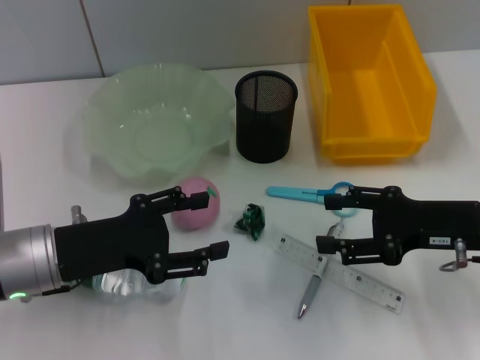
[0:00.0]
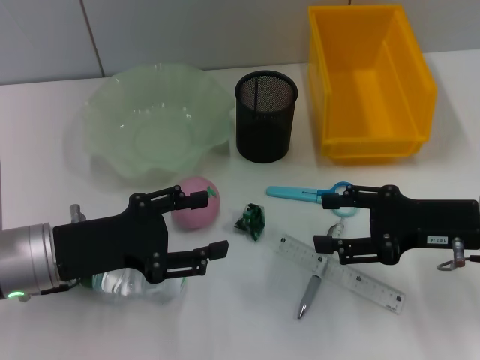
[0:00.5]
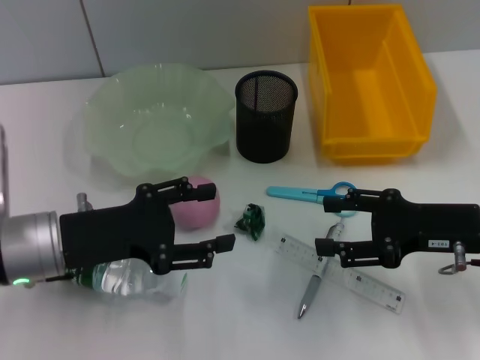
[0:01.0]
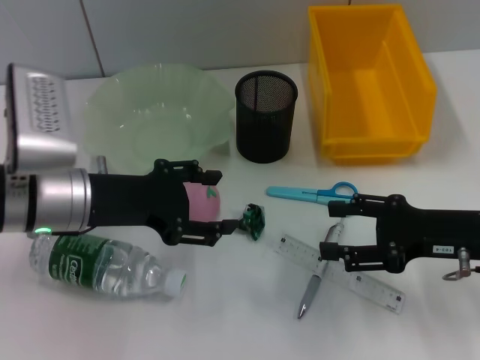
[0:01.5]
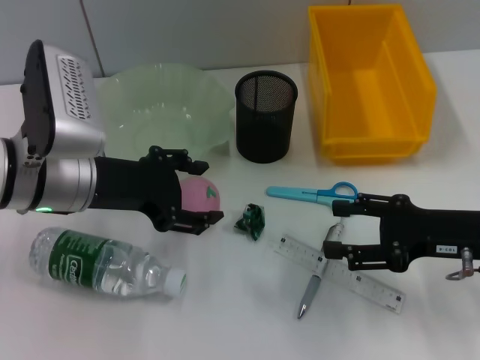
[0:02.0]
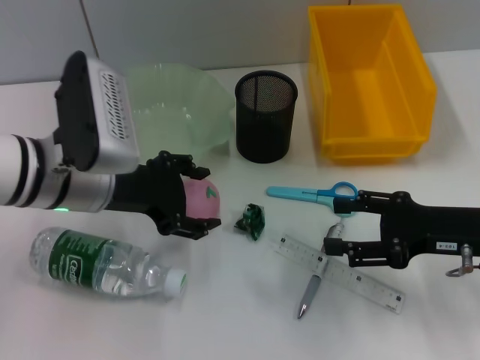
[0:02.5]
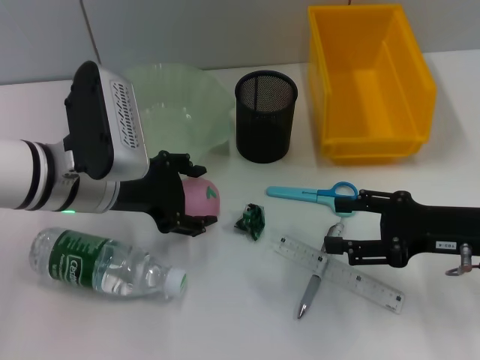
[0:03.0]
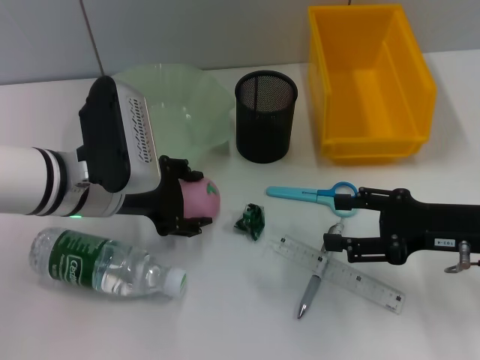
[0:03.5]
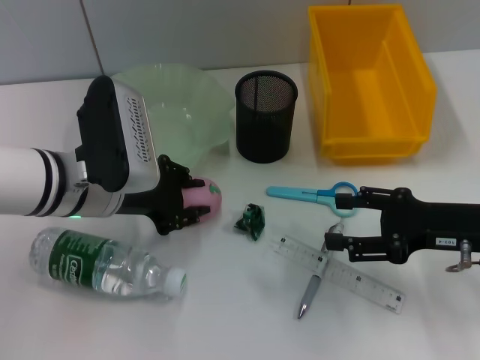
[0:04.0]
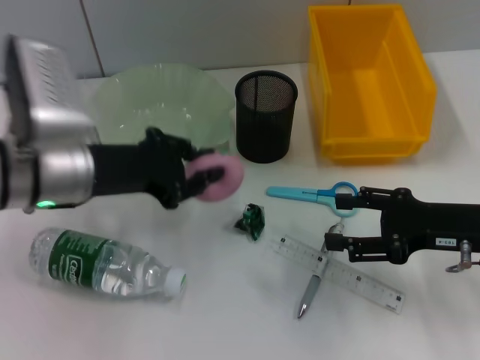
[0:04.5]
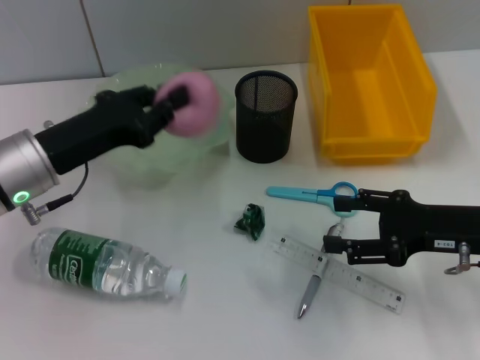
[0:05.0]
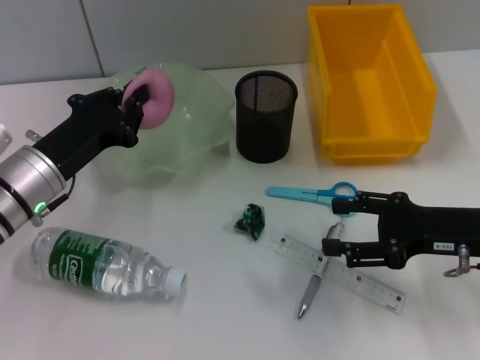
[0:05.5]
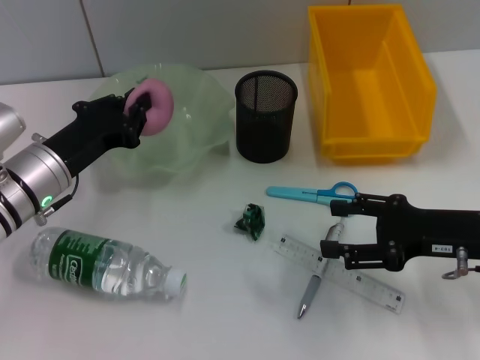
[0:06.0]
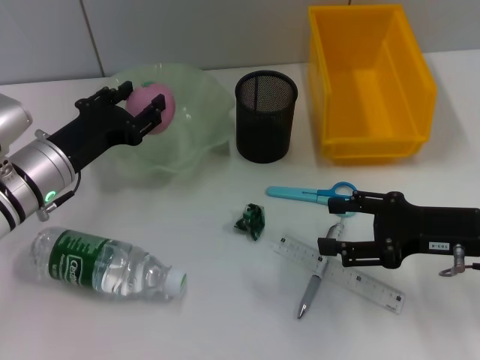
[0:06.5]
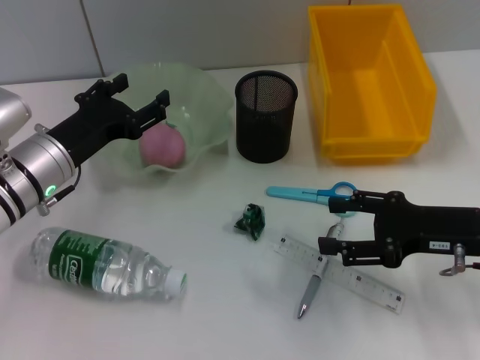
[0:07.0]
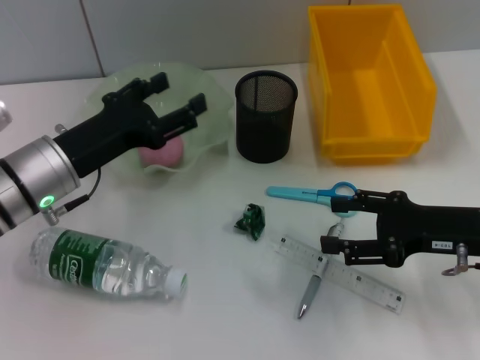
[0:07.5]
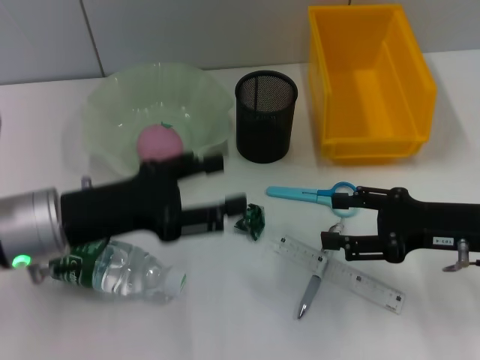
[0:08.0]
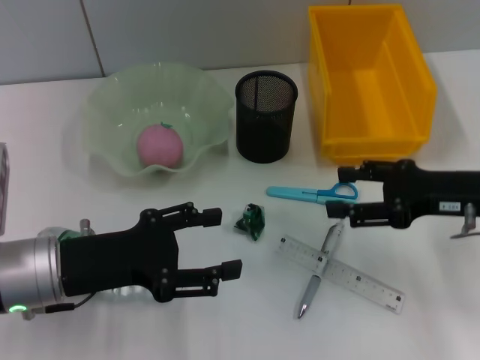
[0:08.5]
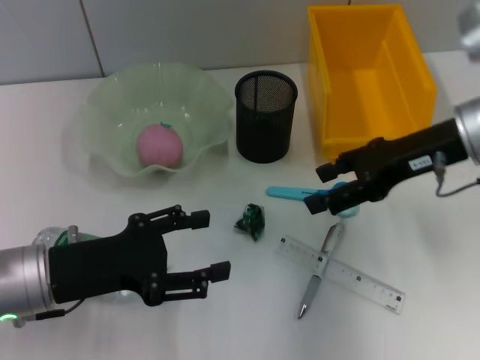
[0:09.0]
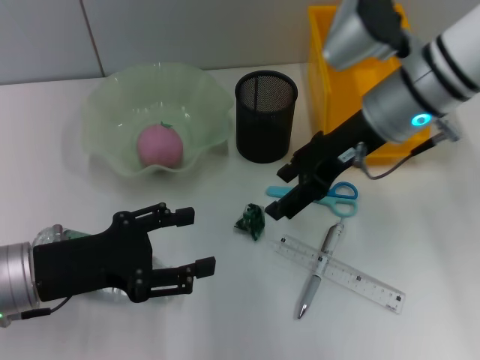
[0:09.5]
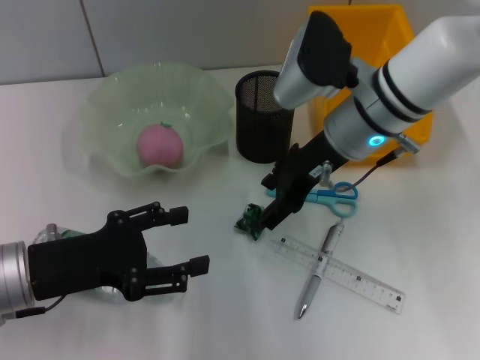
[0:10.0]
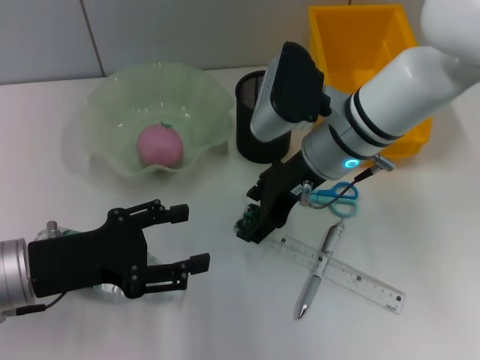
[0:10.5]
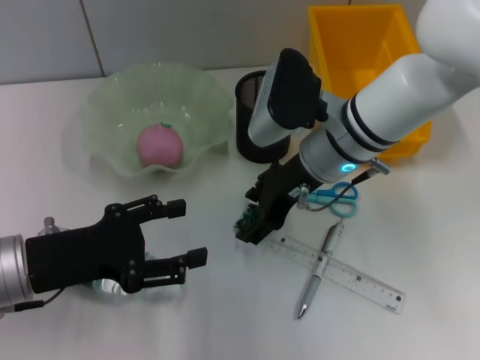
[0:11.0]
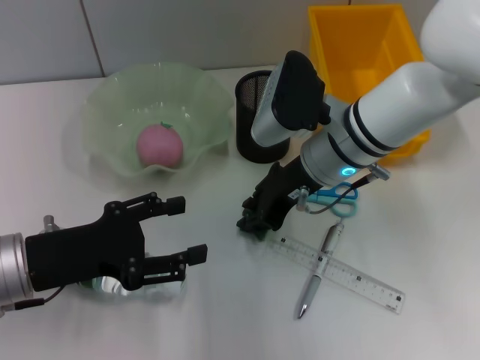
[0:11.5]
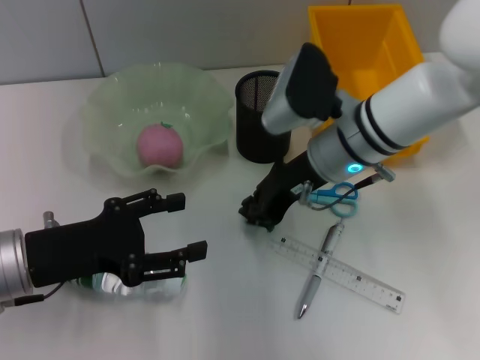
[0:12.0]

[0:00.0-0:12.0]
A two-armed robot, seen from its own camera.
Step, 0:00.0 to 0:04.0: Grab the peach with the left hand.
Step, 0:04.5 to 0:06.5: Place the peach into the fruit bowl with the left hand.
Step, 0:07.0 to 0:11.5: Grab the plastic with the right hand.
0:00.0 to 0:02.0: The left gripper shifts some 10 cm upward and forward.
0:02.0 to 0:04.0: The left gripper closes.
0:04.0 to 0:06.0: The left gripper shifts some 5 cm to the left, and closes its fingers.
0:06.0 to 0:08.0: The left gripper is displaced backward by some 5 cm, and opens up.
0:08.0 to 0:10.0: The right gripper moves to the left, forward and upward, some 20 cm.
0:10.0 to 0:12.0: The right gripper closes up.

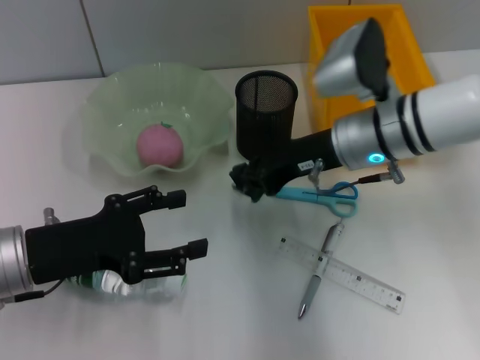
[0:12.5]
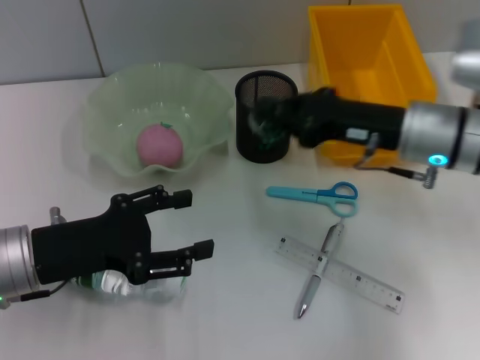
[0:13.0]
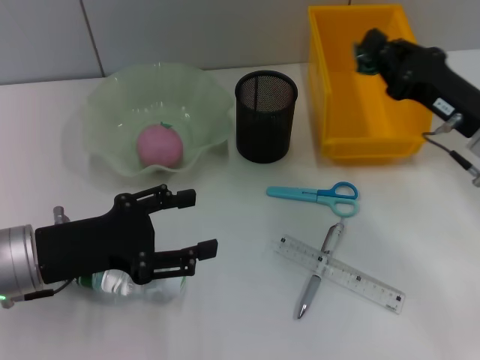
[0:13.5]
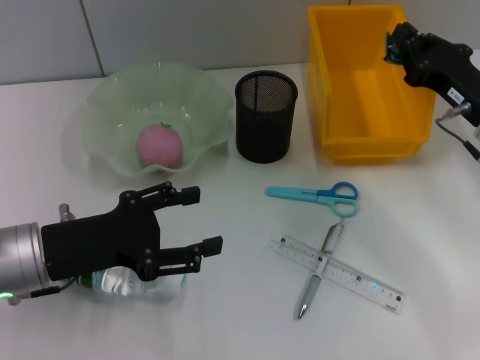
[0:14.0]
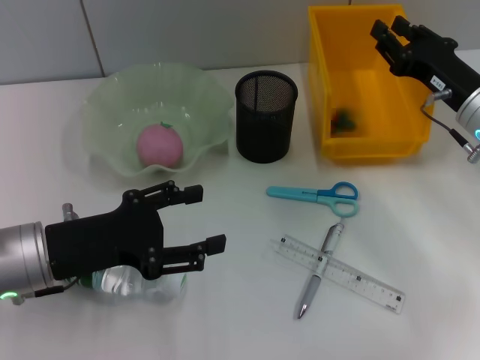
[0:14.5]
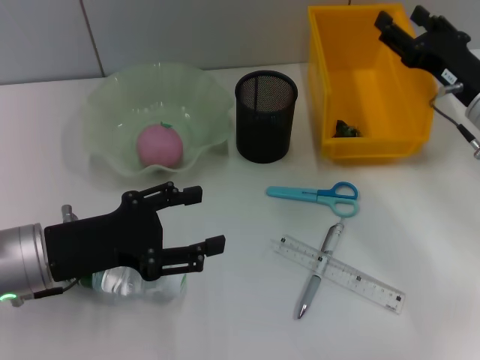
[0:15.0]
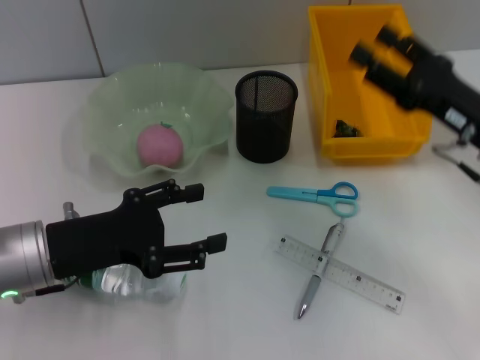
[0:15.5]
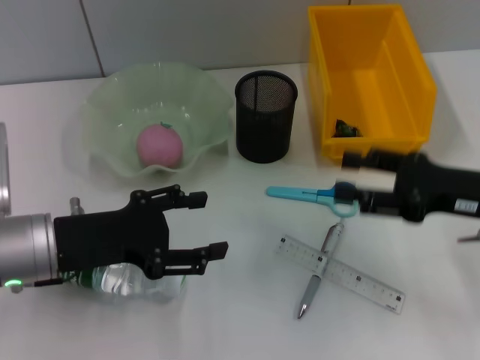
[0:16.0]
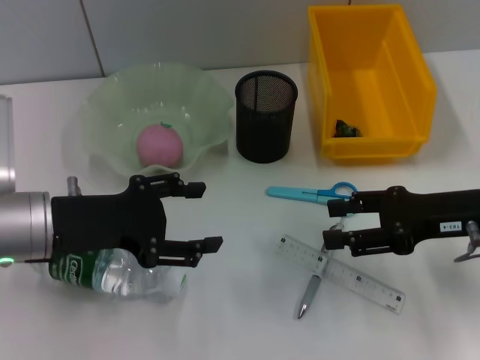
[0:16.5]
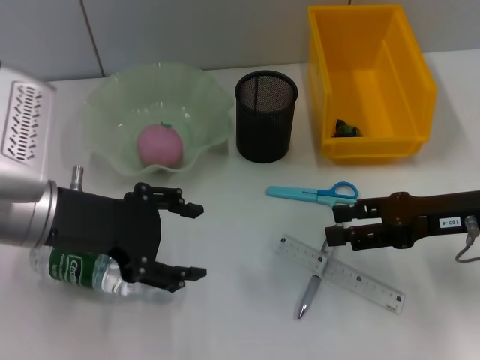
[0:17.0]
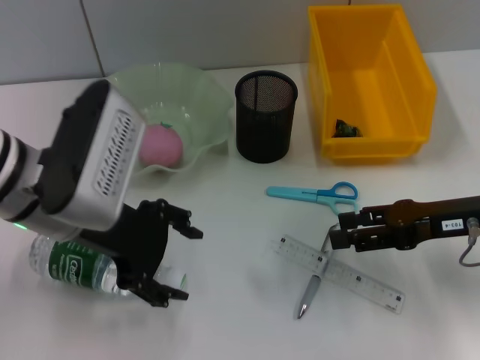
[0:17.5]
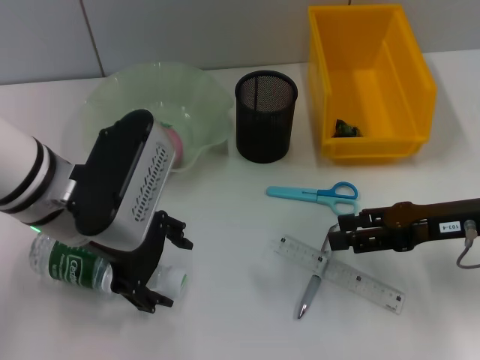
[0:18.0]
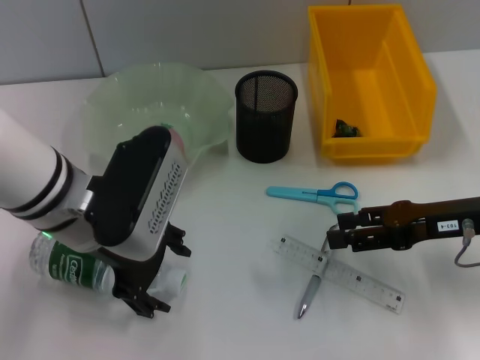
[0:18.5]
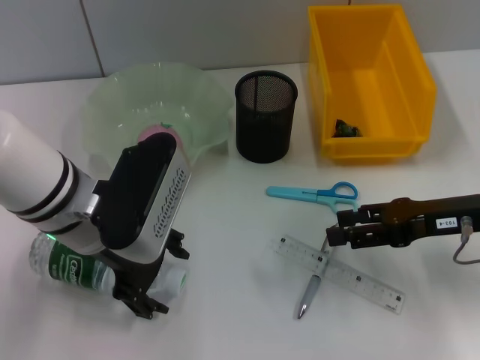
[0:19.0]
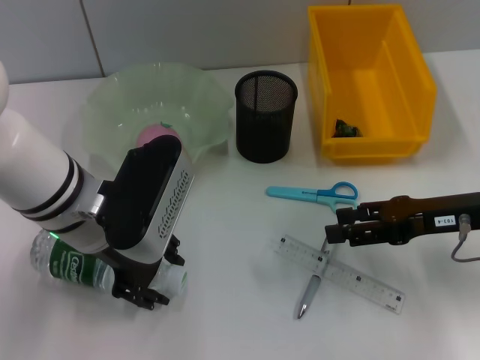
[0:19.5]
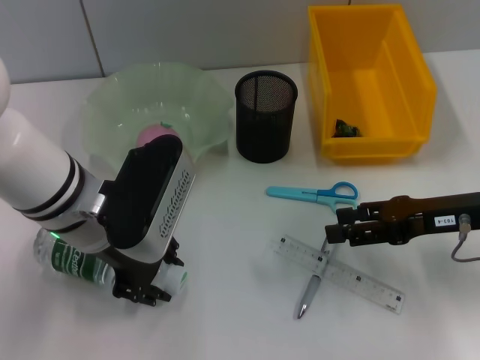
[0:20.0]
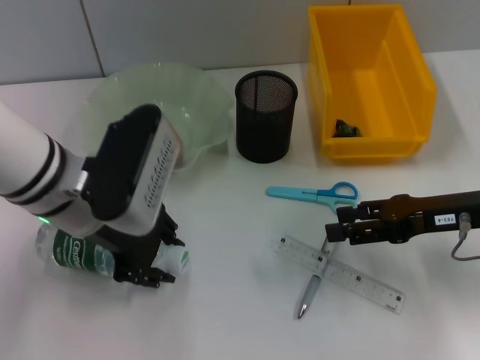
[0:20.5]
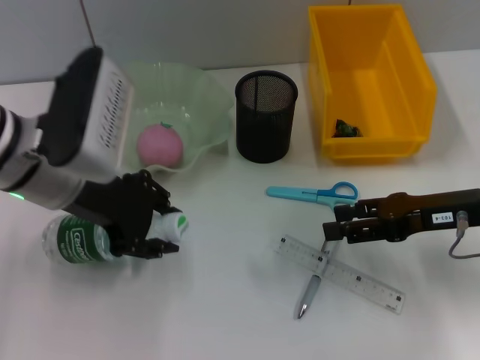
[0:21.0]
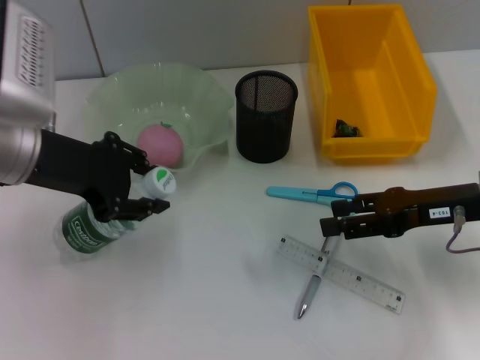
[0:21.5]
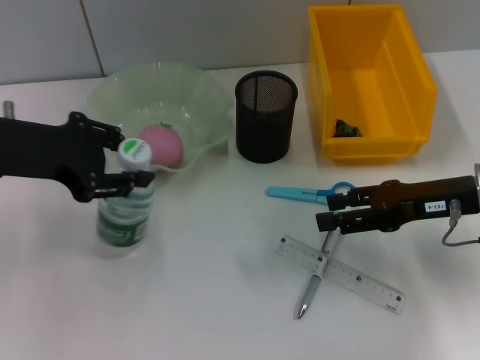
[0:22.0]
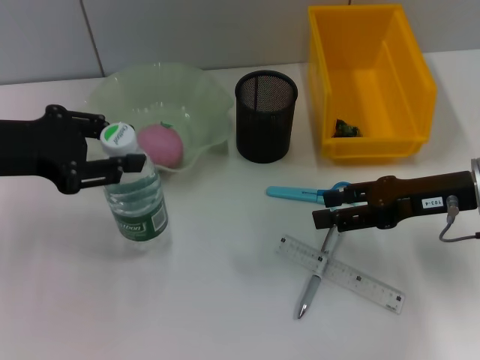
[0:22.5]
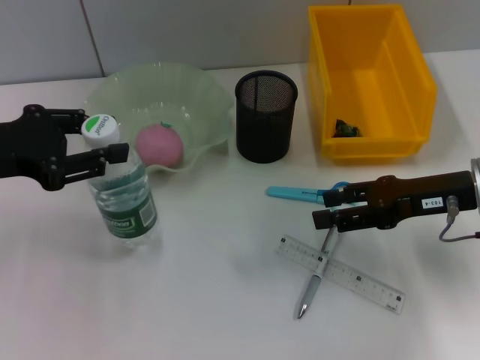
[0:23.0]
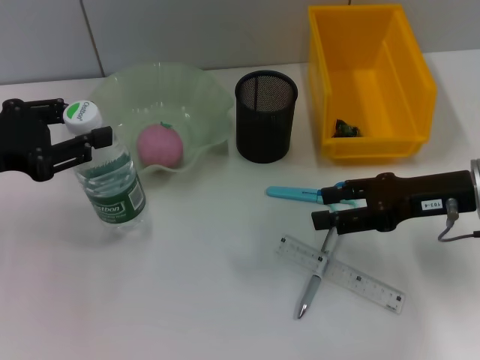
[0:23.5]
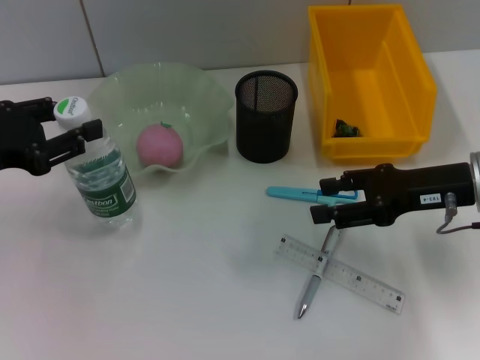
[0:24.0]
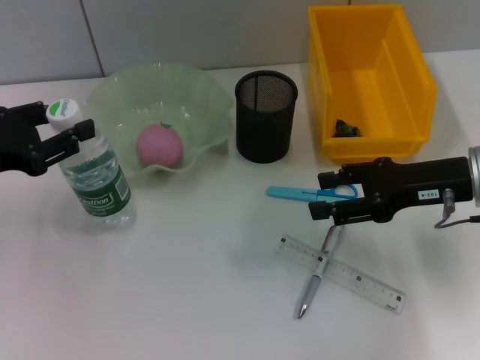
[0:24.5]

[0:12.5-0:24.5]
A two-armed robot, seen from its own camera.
Step, 0:12.5 to 0:14.5: Place the plastic into the trash can with the right hand.
Step, 0:15.0 to 0:20.0: Grab the water bottle with the left hand.
0:12.5 to 0:14.5: The right gripper moves to the right, some 10 cm.
0:14.5 to 0:16.5: The right gripper travels backward by approximately 5 cm, and opens its fingers.
0:16.5 to 0:18.5: The left gripper moves to the right, about 5 cm.
0:18.5 to 0:20.5: The left gripper closes up.
0:20.5 to 0:22.5: The left gripper shifts about 10 cm to the left.
0:22.5 to 0:24.5: The left gripper shifts by about 5 cm.

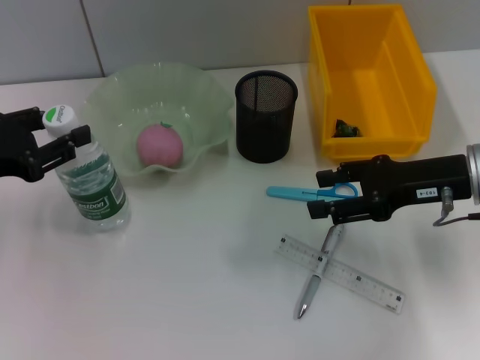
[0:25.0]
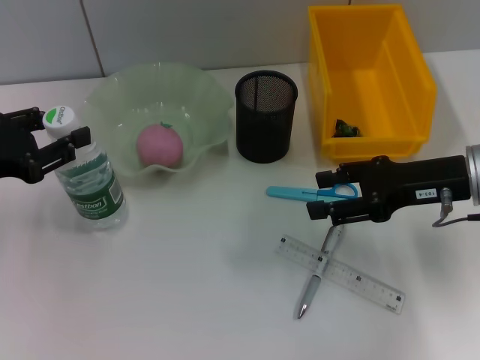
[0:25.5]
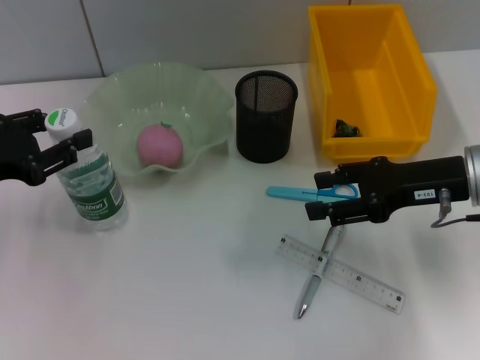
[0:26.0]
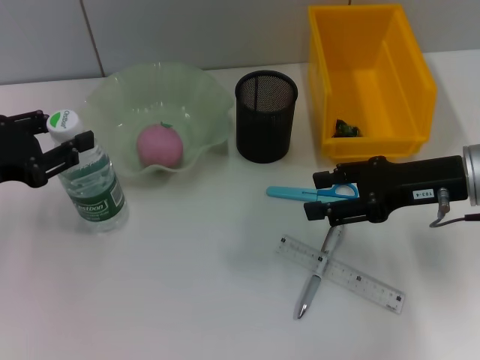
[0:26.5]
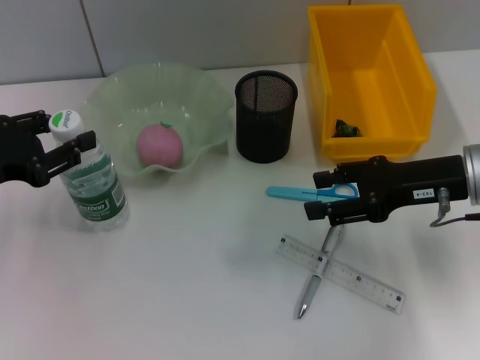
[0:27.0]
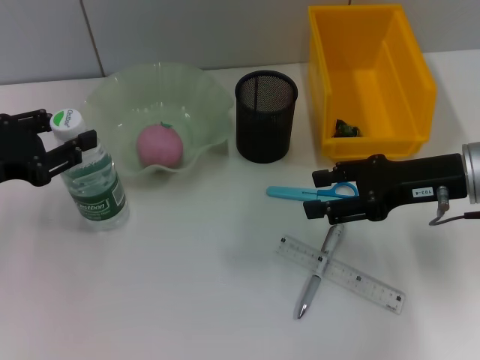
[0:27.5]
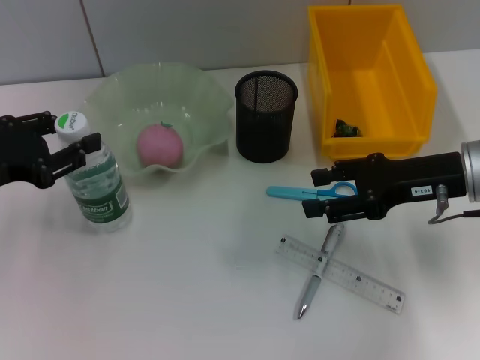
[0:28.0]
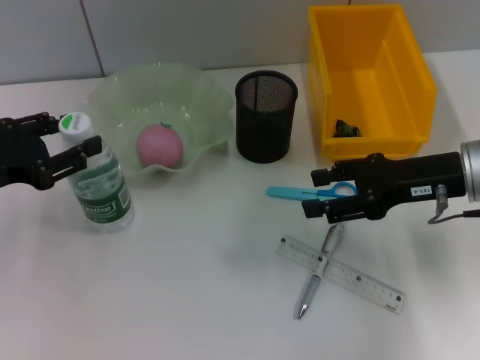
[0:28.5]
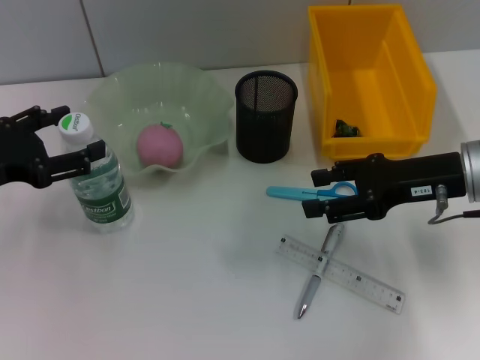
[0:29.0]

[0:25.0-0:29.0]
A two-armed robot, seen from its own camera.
Step, 0:25.0 to 0:28.5: Place the water bottle on the table with the left hand.
0:25.0 to 0:27.0: Both grippers stay put.
0:27.0 to 0:29.0: The left gripper opens.
